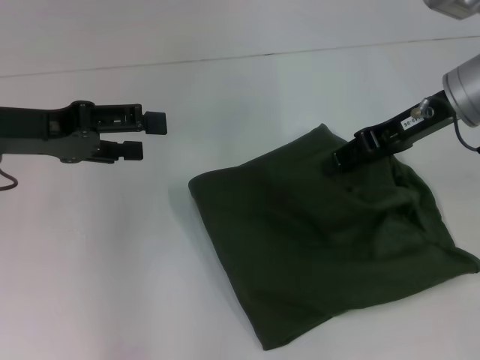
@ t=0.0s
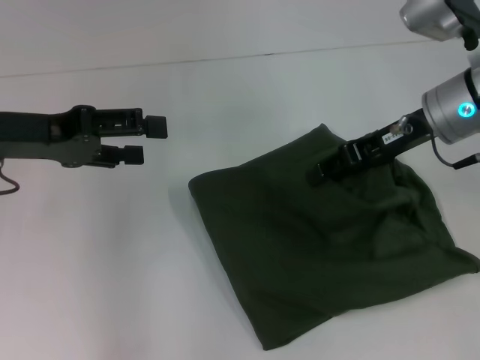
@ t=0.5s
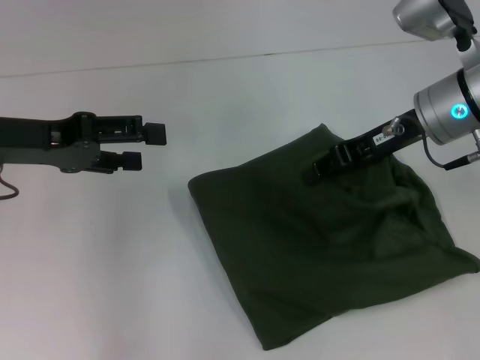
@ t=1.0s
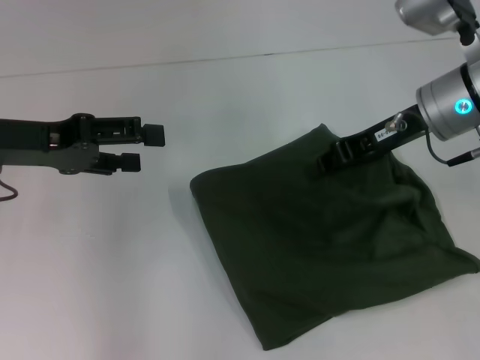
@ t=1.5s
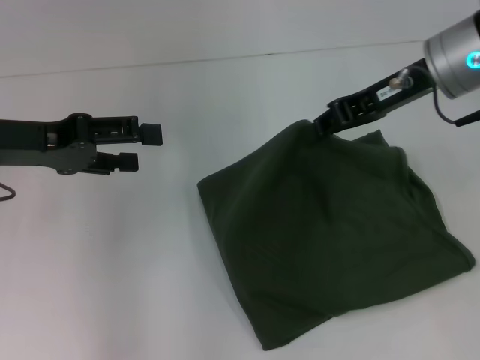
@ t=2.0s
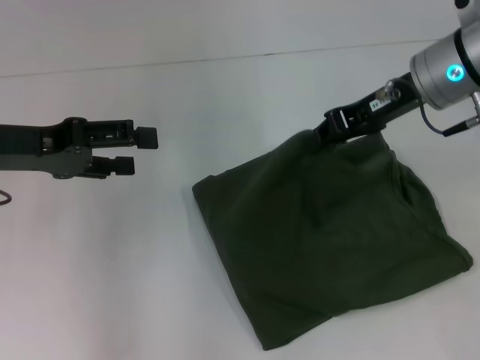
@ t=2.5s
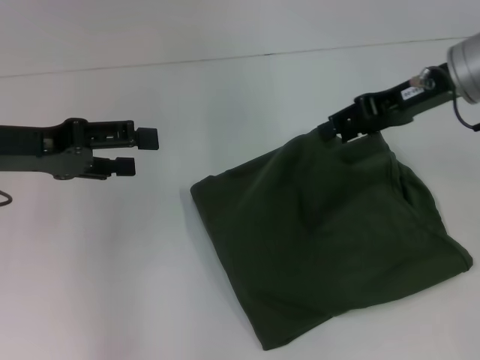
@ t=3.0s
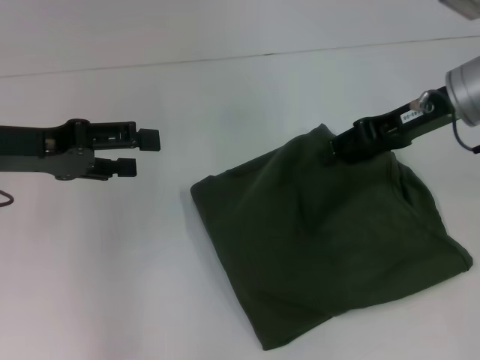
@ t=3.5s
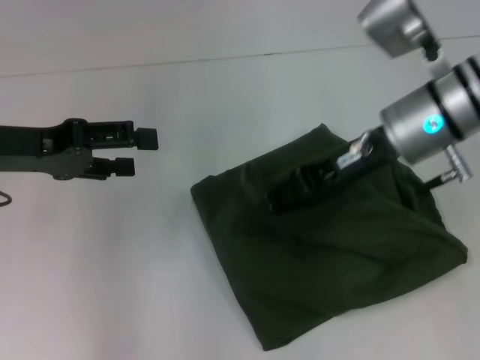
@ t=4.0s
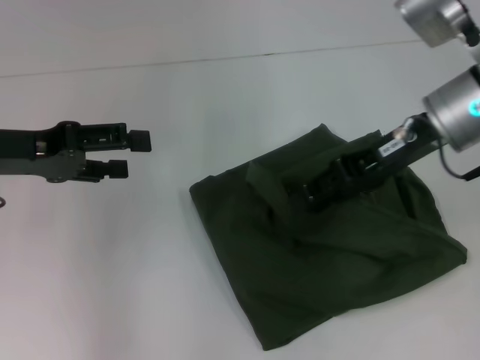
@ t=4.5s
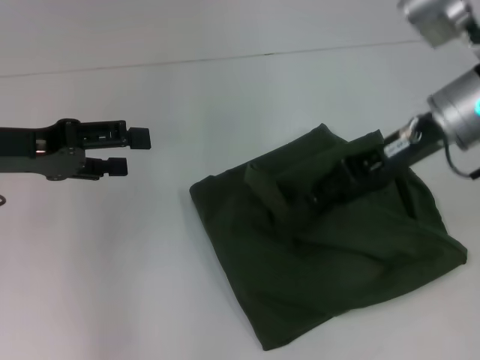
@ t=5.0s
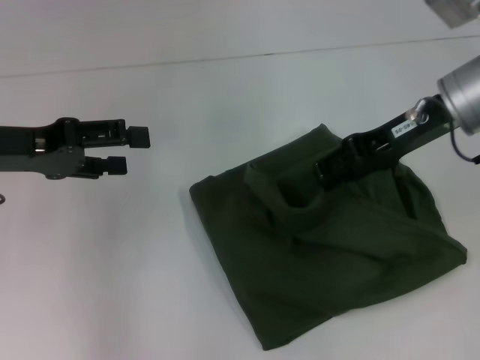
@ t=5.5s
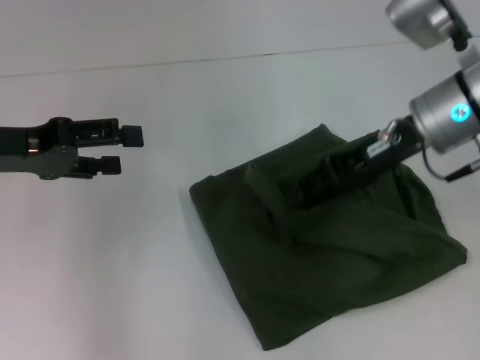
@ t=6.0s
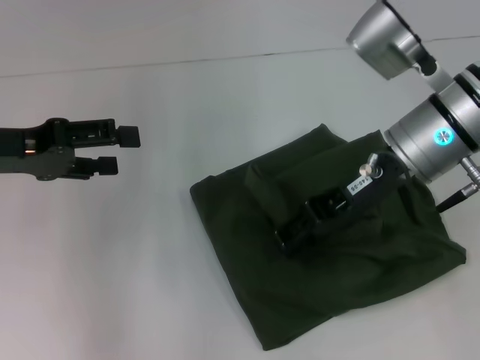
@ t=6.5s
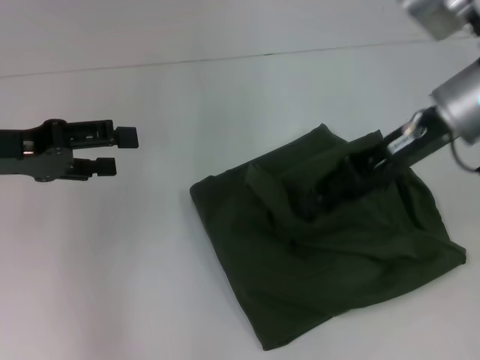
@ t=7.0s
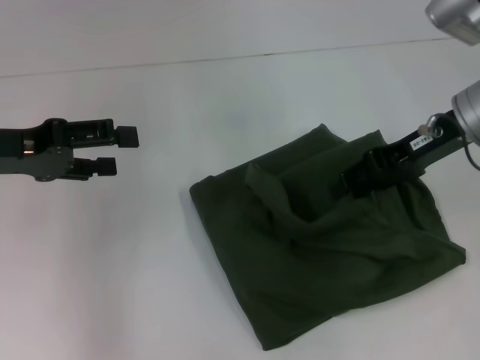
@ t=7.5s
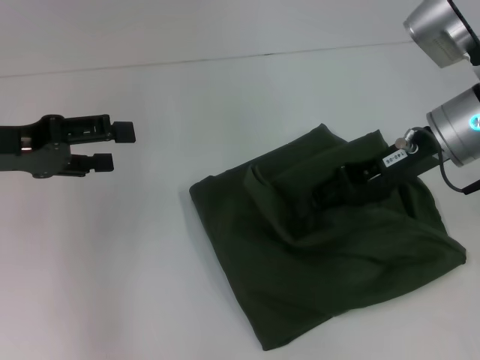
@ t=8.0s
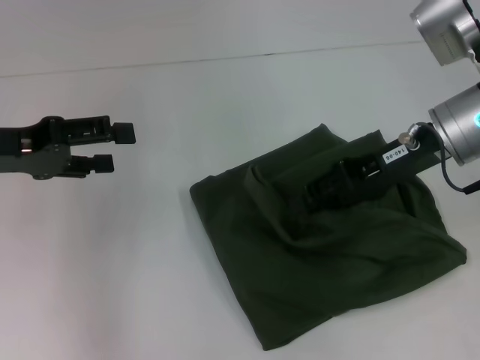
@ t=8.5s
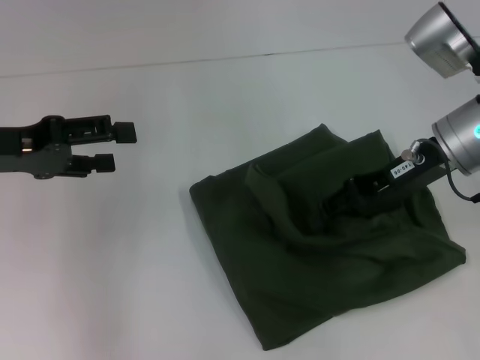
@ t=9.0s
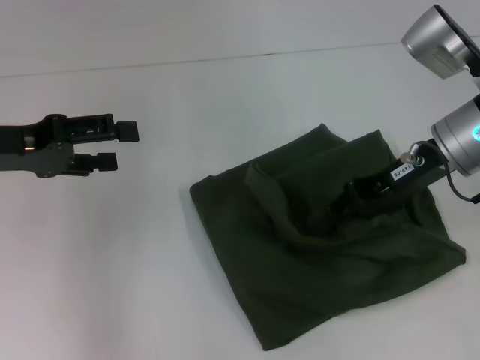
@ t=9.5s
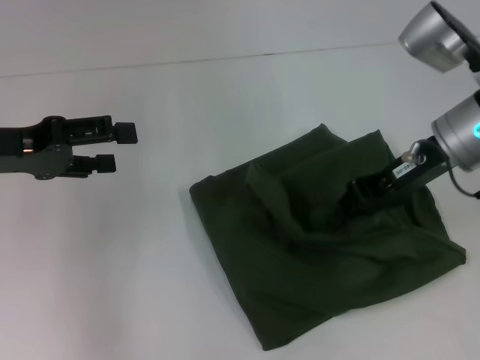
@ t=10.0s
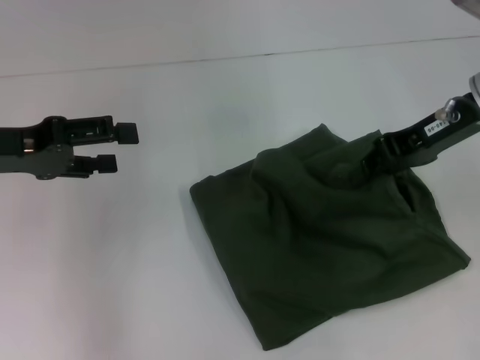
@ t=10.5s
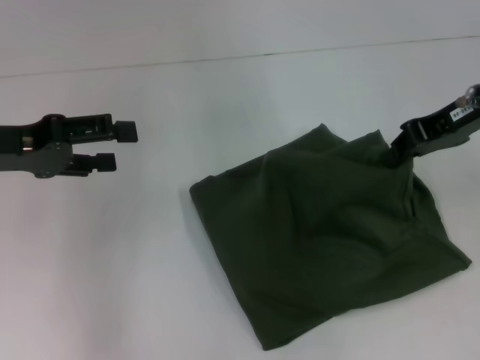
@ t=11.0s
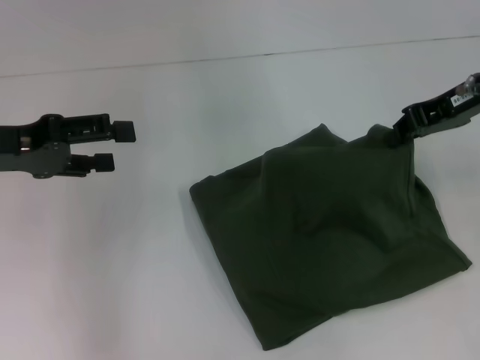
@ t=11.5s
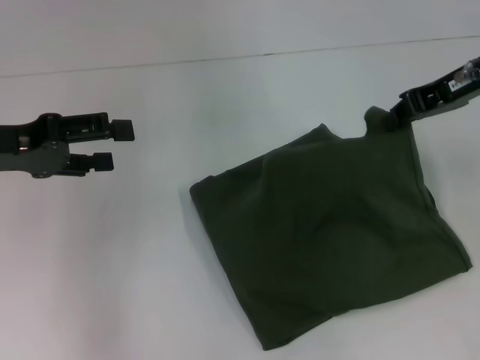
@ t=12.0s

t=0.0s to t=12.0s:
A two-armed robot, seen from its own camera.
t=0.0s to t=2.0s: The grippers make only small movements.
t=2.0s to t=4.0s: The right gripper moves roughly 5 cm, and opens.
t=4.0s to t=6.0s: The grippers make only small movements.
t=6.0s to t=8.0s: The grippers move only a little.
t=8.0s to t=10.0s: The right gripper closes up.
t=10.0s to t=12.0s: The right gripper heads upward, covering some 5 cm.

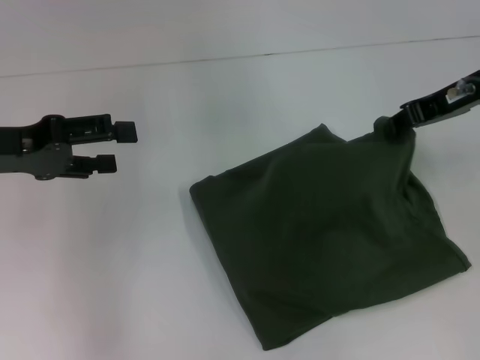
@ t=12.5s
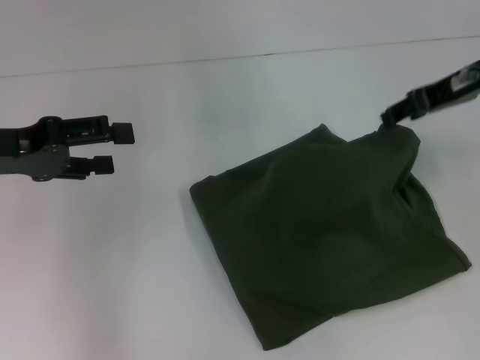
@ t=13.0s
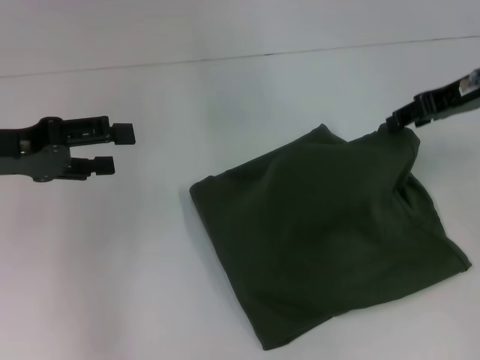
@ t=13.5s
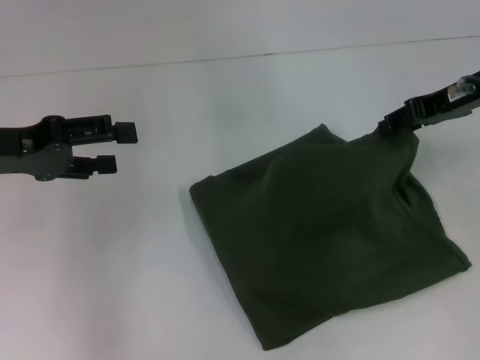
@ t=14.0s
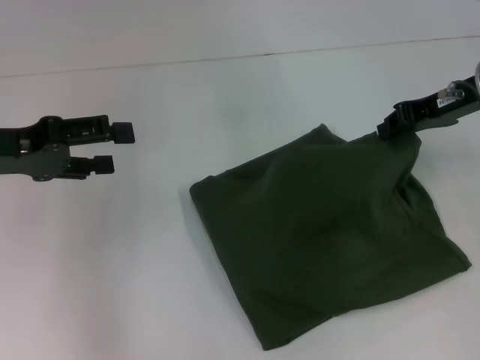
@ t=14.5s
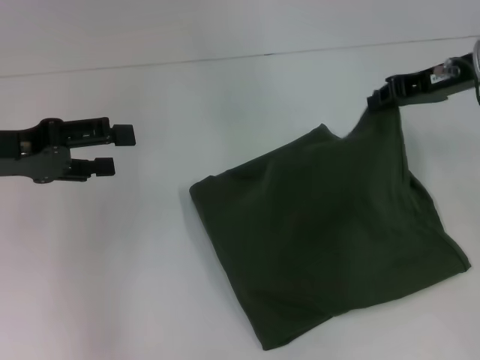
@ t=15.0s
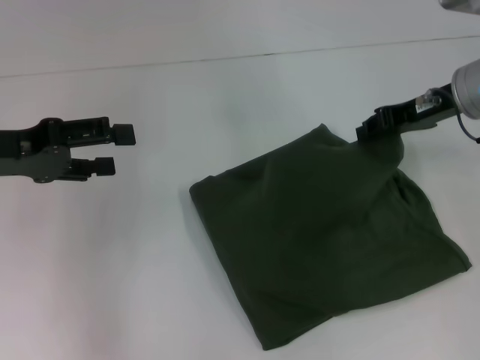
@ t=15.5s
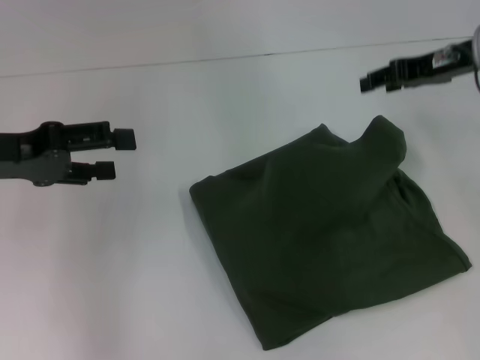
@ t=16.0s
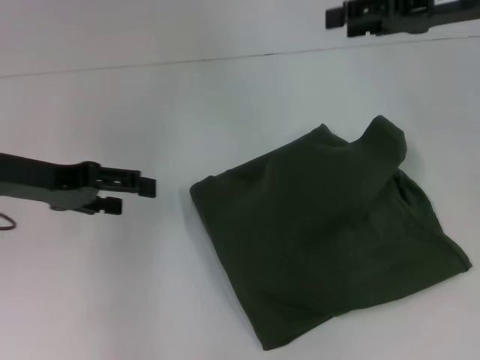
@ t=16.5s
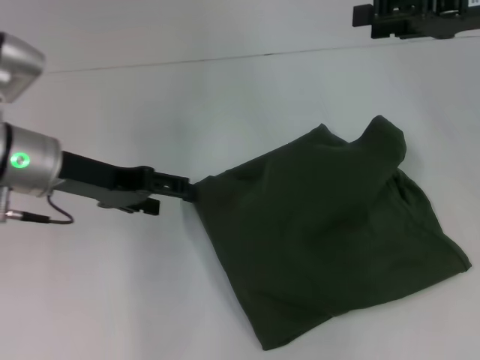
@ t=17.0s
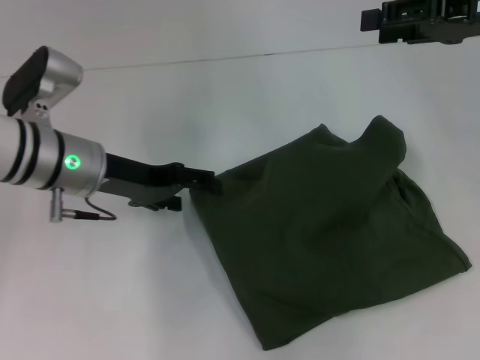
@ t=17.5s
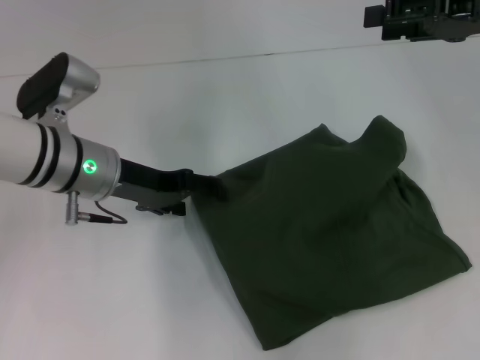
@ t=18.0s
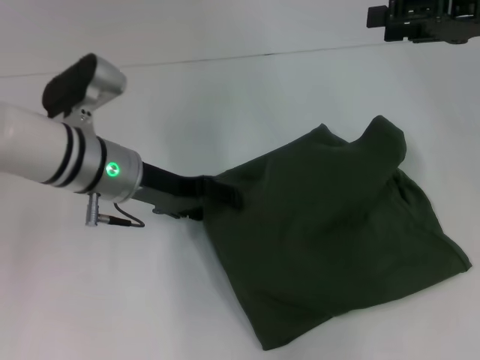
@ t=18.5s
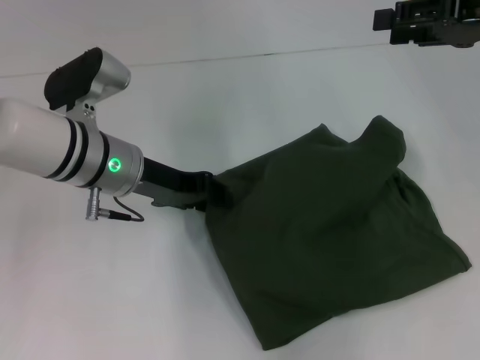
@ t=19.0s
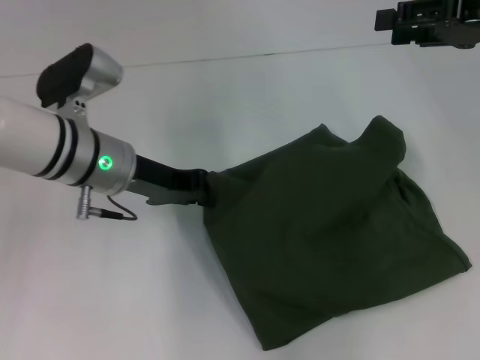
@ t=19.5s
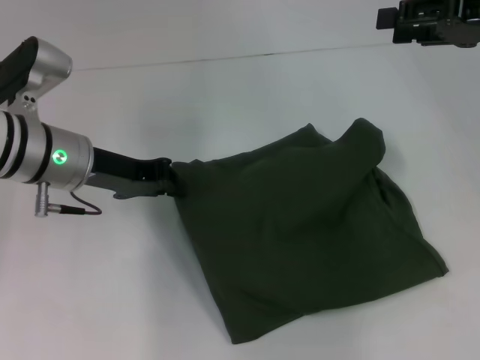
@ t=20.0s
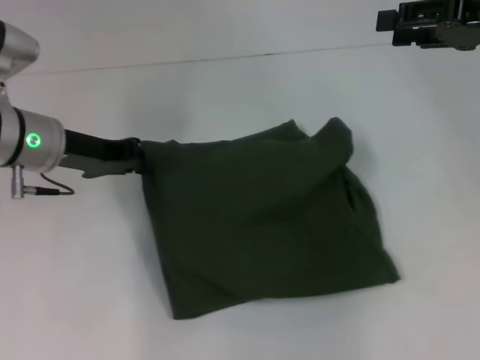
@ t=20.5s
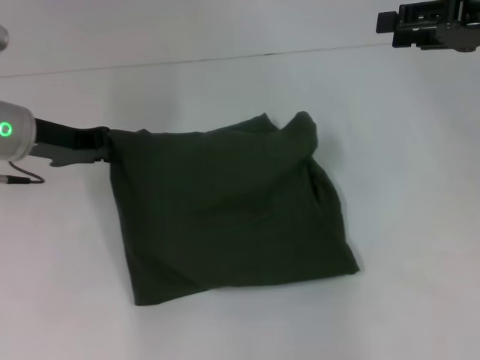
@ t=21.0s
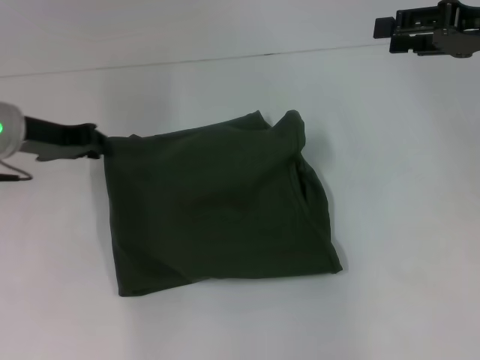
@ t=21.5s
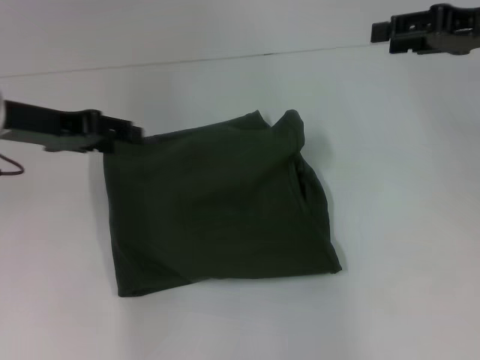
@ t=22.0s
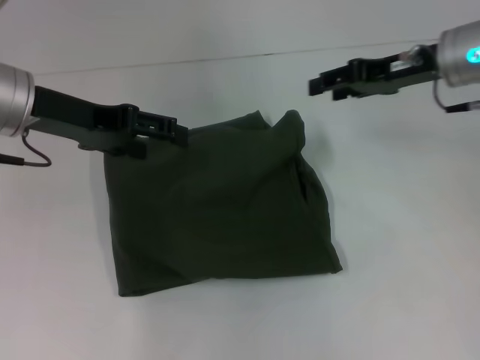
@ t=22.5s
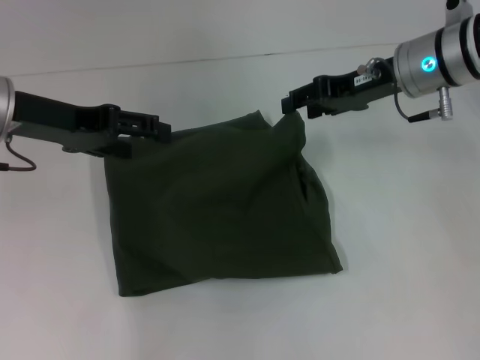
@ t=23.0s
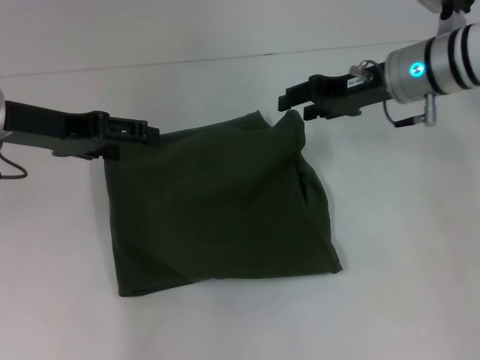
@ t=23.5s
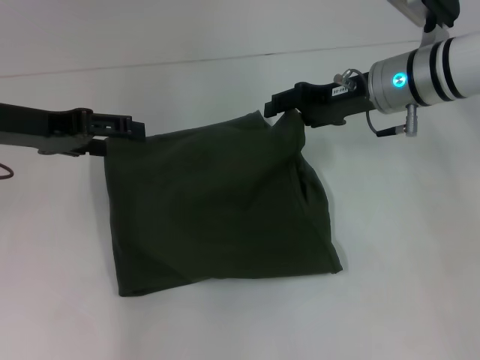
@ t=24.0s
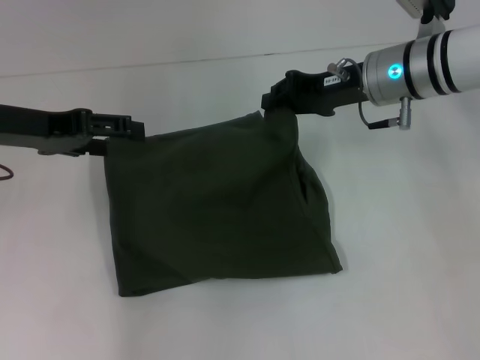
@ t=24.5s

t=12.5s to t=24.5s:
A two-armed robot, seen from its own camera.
t=12.5s to t=14.5s: The grippers make only small movements.
t=14.5s to t=16.5s: The right gripper is displaced upward by some 5 cm, and opens.
t=16.5s to t=18.5s: The left gripper shifts some 15 cm to the right and downward.
t=18.5s to t=20.5s: The left gripper moves to the left, roughly 5 cm, and closes.
t=20.5s to t=22.5s: The left gripper shifts approximately 5 cm upward, and opens up, while the right gripper moves to the left and downward, about 10 cm.
t=22.5s to t=24.5s: The right gripper heads to the left, covering some 5 cm.

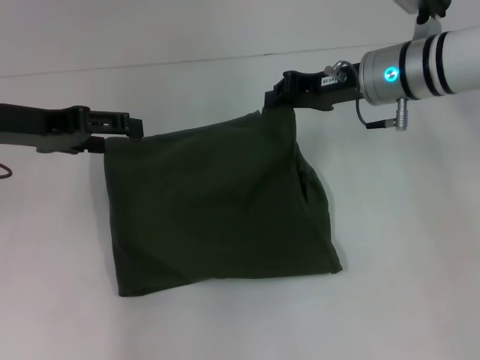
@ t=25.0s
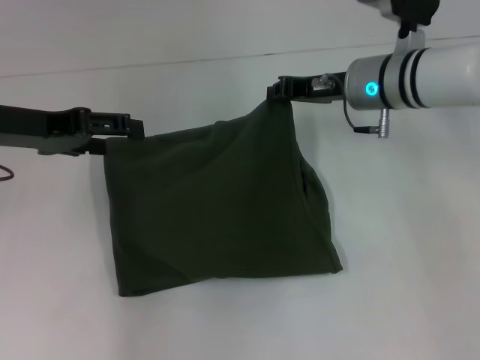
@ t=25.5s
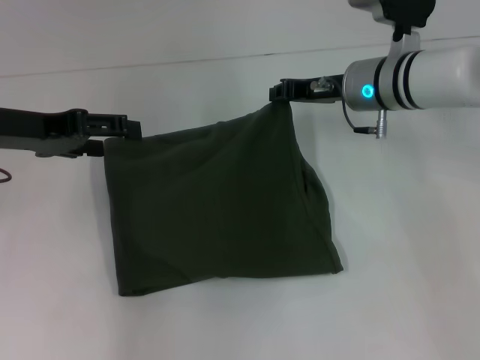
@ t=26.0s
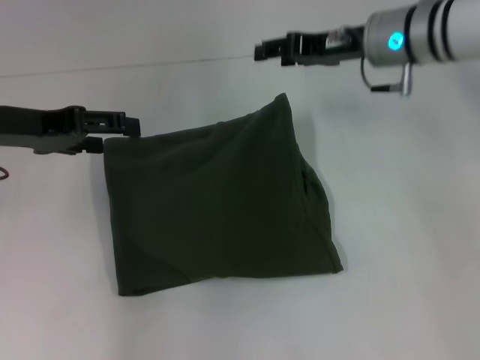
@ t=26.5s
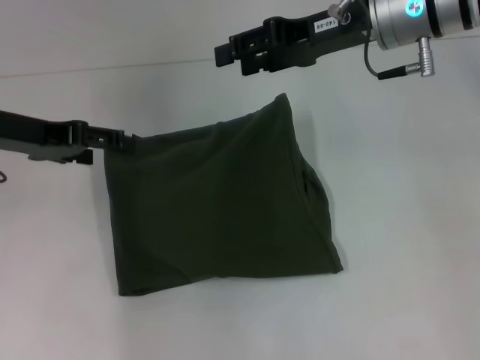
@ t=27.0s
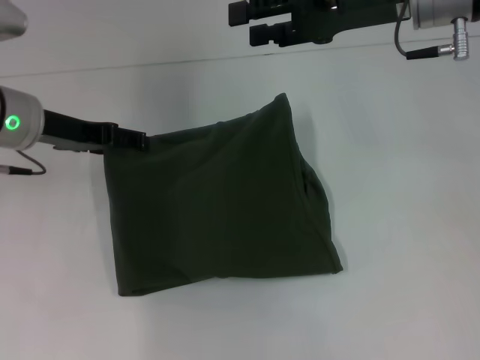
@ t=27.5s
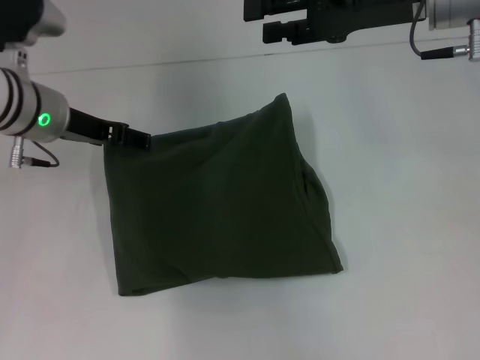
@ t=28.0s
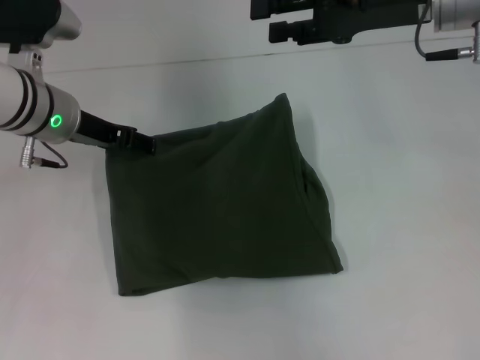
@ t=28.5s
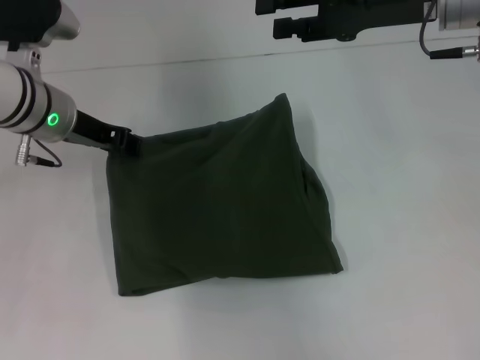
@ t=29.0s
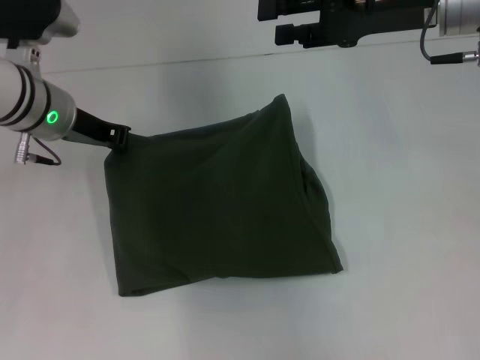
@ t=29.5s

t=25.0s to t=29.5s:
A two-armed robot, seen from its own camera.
t=25.0s to t=27.0s: The right gripper is displaced upward by approximately 10 cm, and opens.
t=27.0s to t=29.5s: The grippers both shift to the right by some 5 cm. The left gripper closes its fingers.
